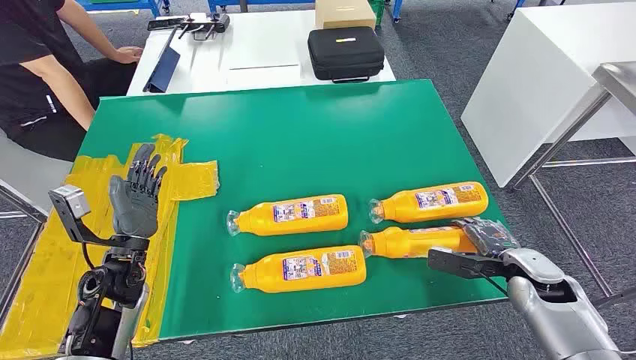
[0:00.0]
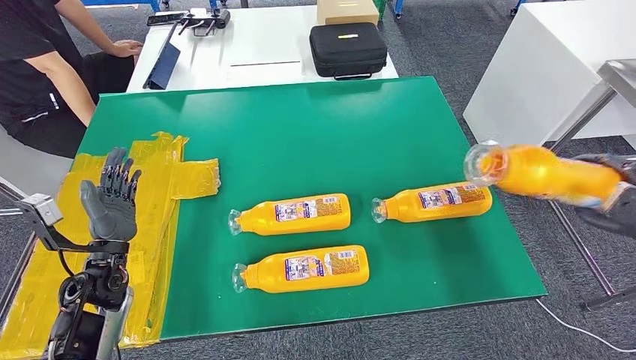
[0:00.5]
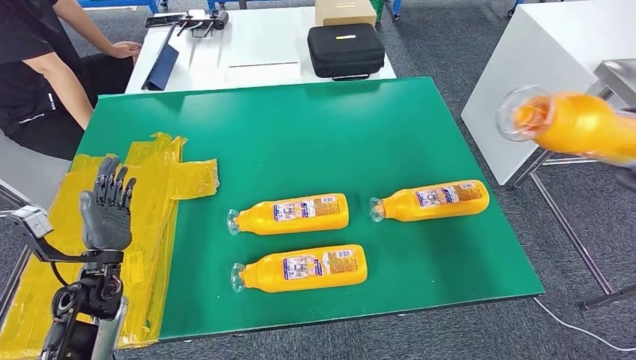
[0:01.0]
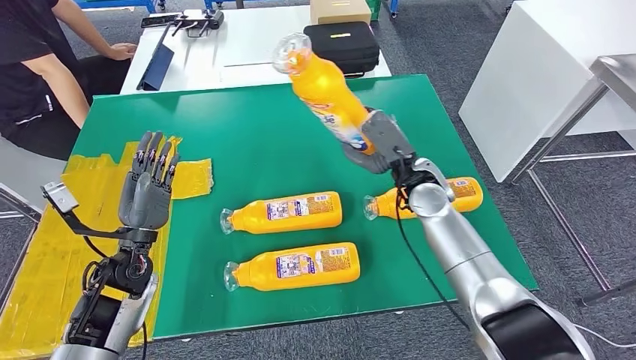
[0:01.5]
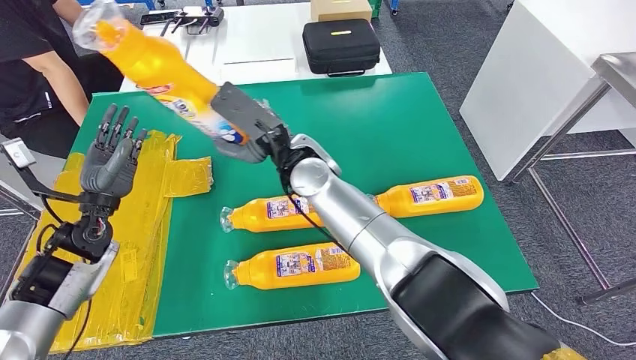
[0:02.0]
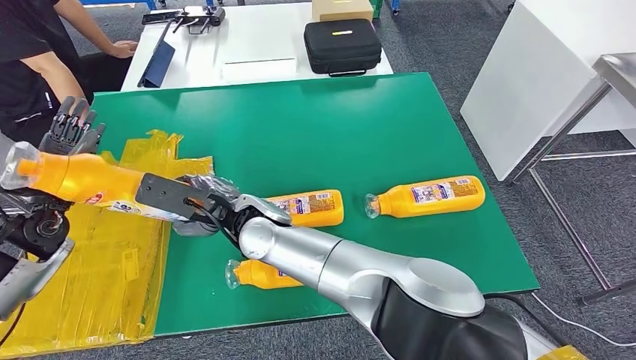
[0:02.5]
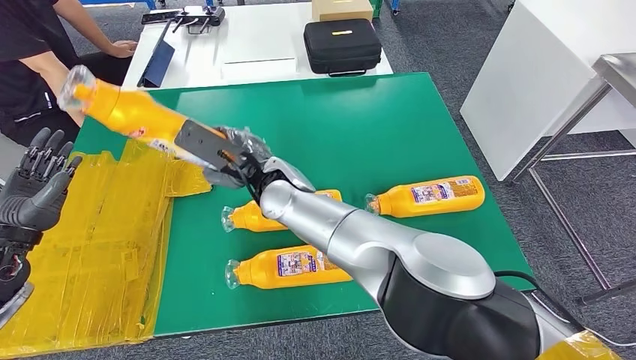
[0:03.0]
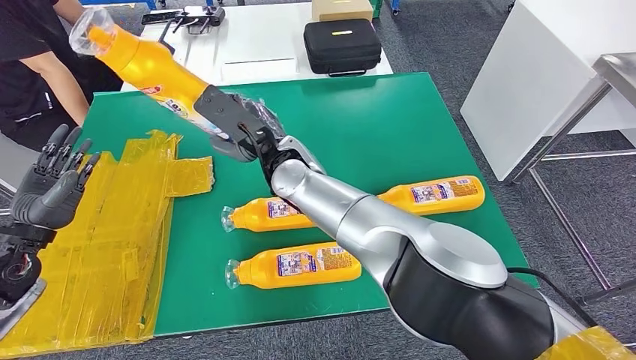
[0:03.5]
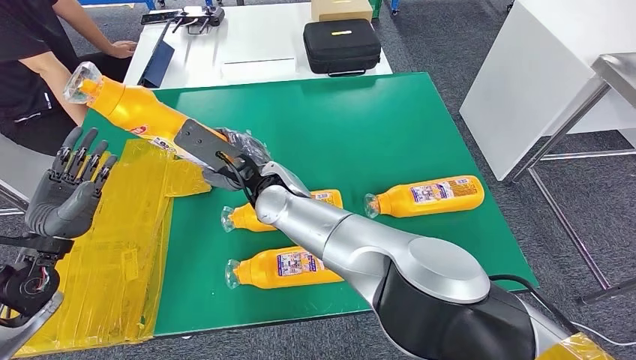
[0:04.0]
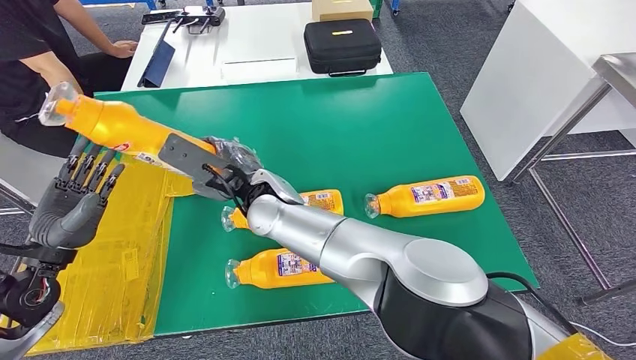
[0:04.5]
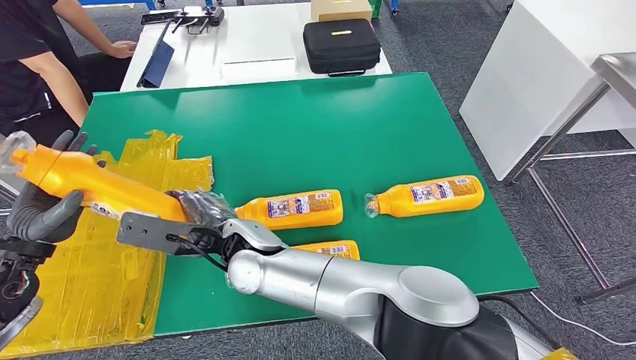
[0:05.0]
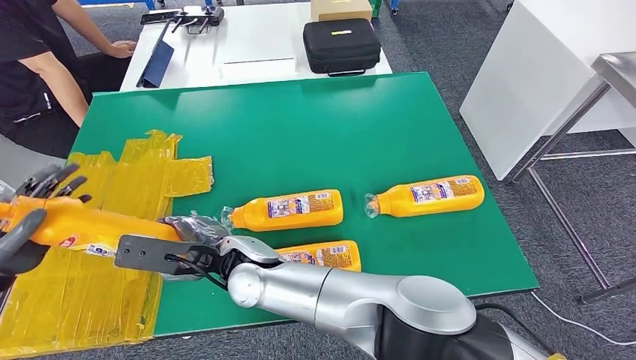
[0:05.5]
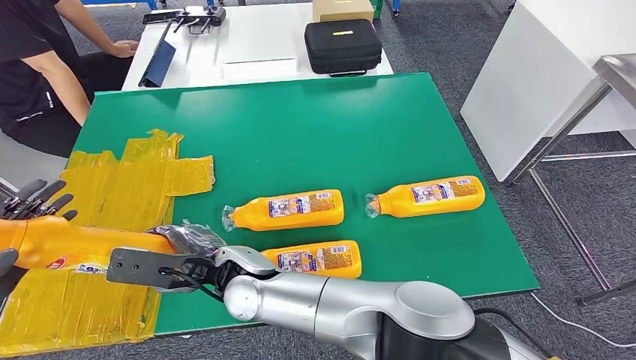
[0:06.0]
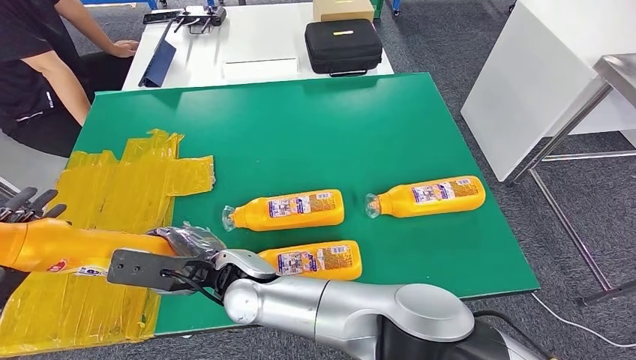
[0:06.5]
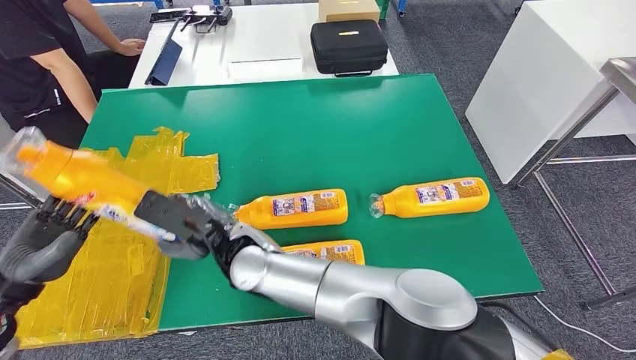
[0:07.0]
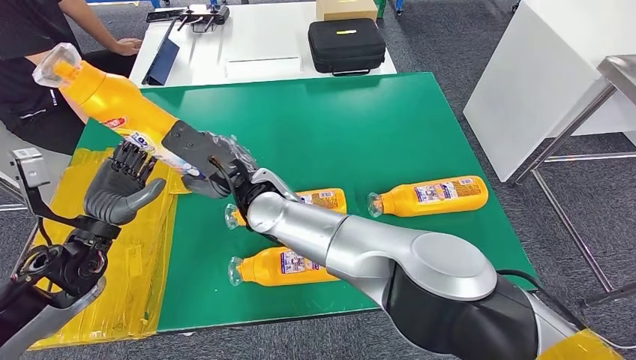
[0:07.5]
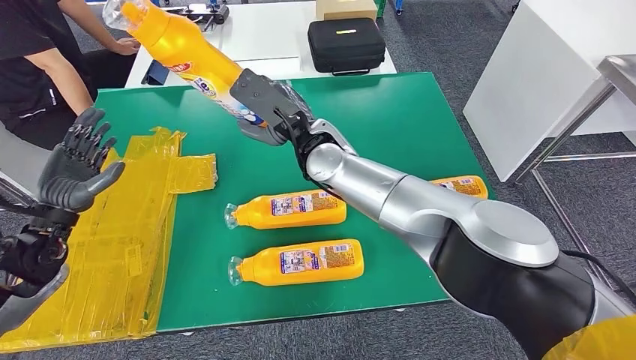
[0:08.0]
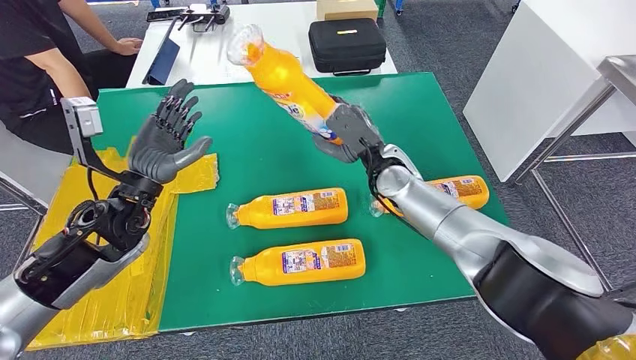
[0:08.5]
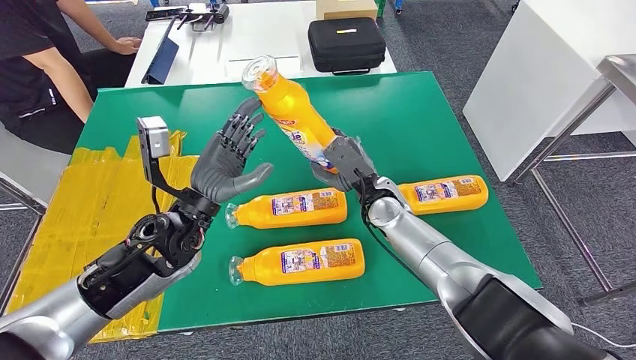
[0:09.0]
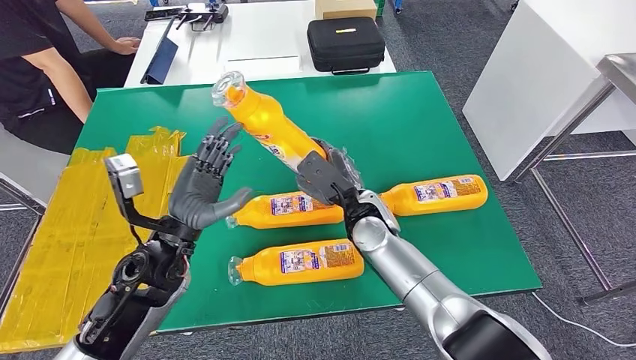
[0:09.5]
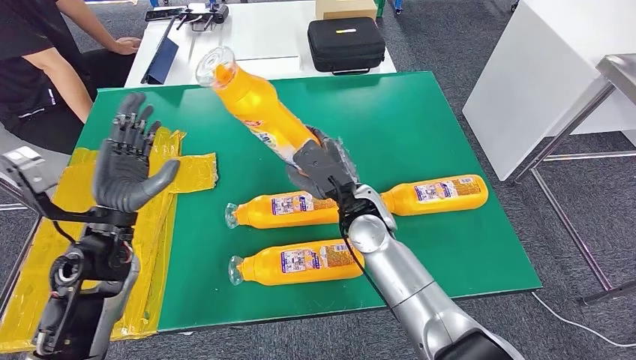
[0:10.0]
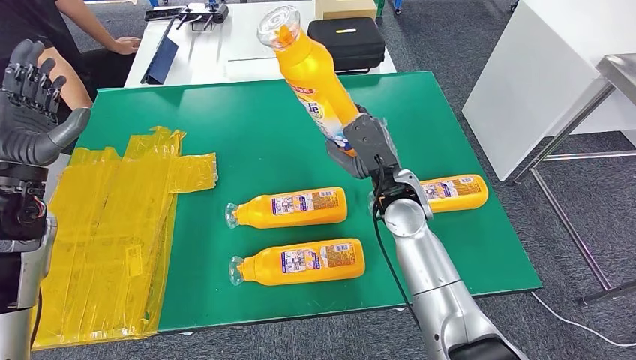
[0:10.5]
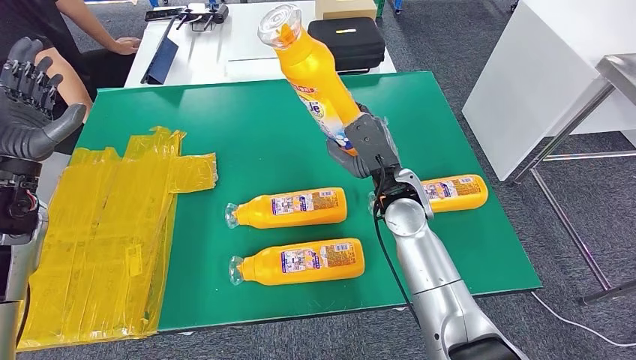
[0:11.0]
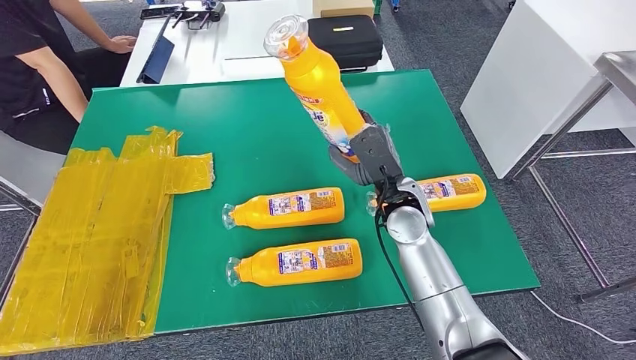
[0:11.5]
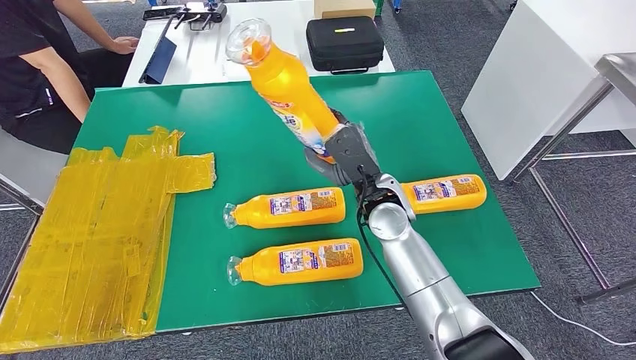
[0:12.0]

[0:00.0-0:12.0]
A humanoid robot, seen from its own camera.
Step, 0:00.0 to 0:02.5: Take the fast-moving consumer goods bottle from the table.

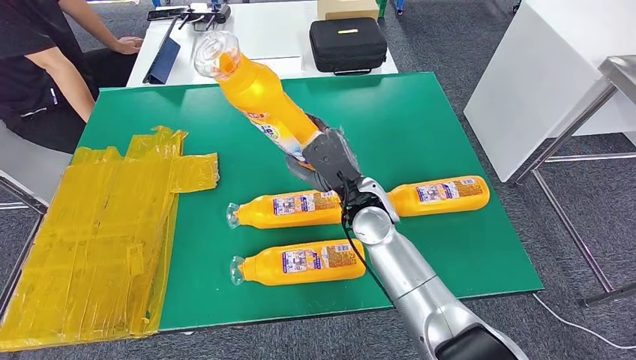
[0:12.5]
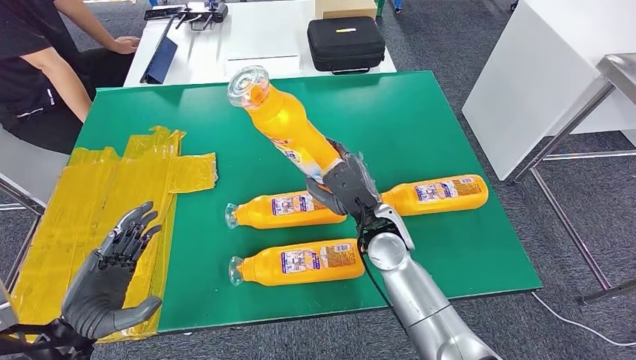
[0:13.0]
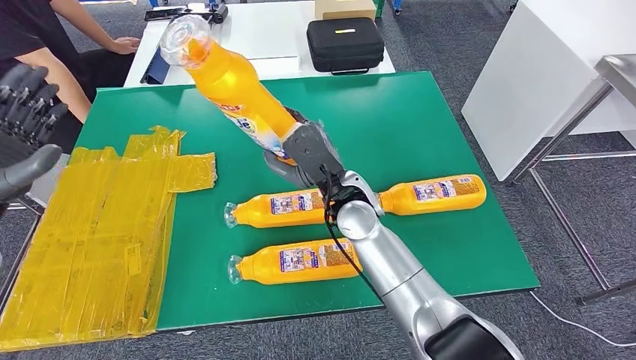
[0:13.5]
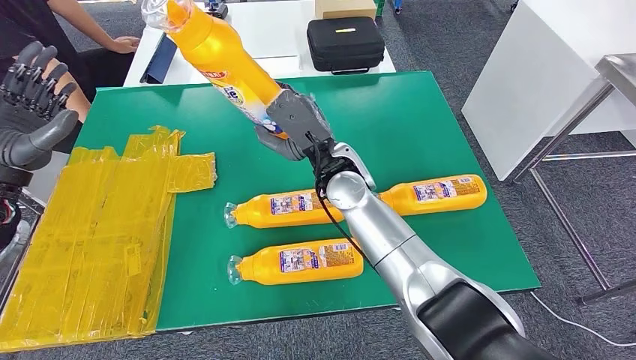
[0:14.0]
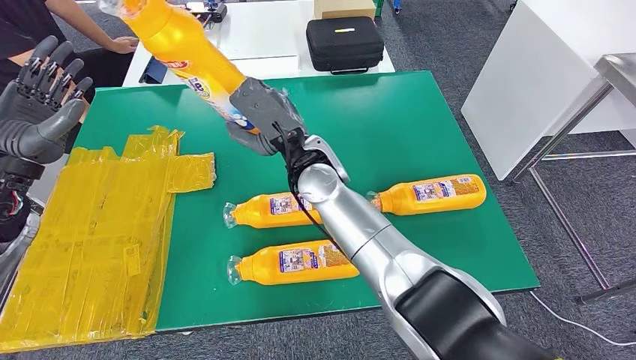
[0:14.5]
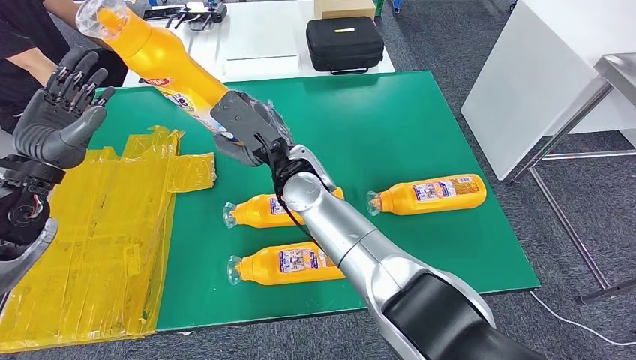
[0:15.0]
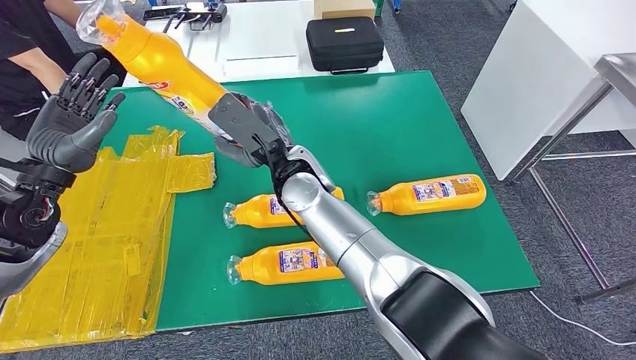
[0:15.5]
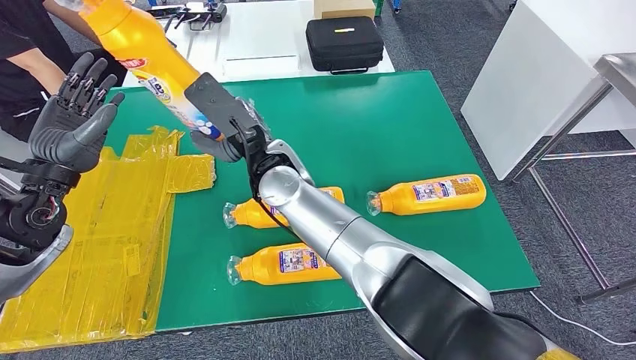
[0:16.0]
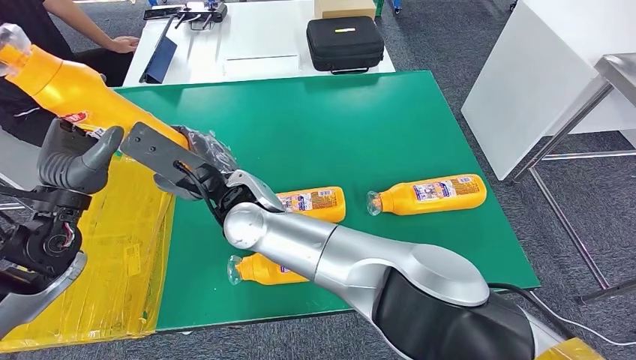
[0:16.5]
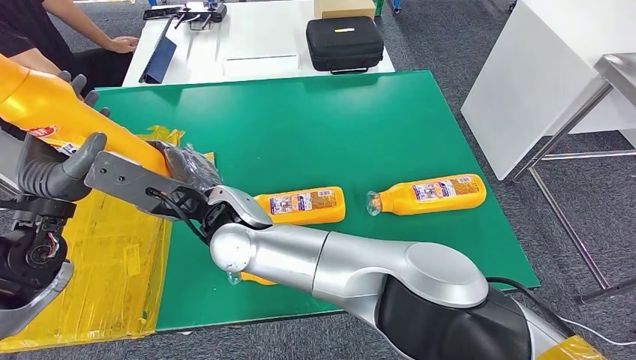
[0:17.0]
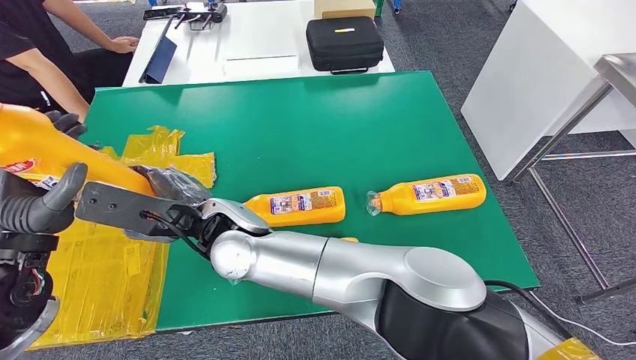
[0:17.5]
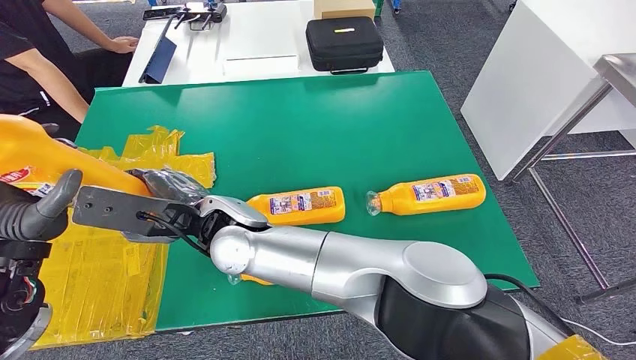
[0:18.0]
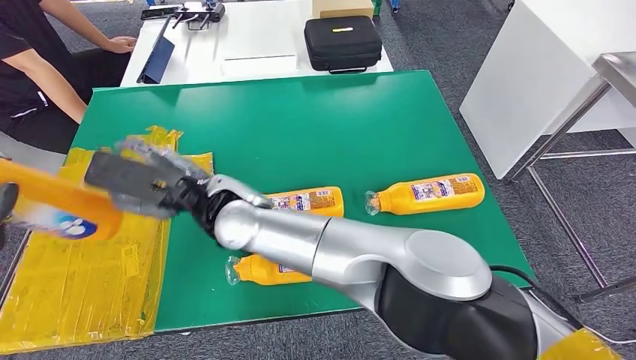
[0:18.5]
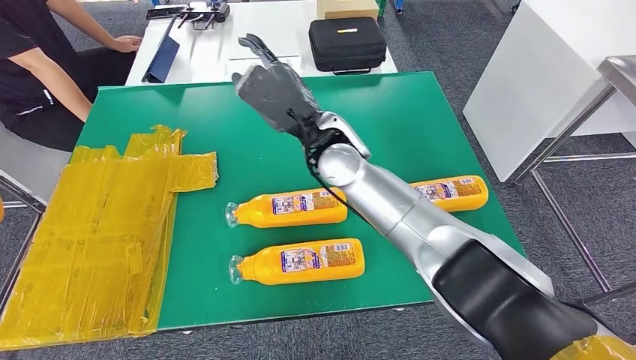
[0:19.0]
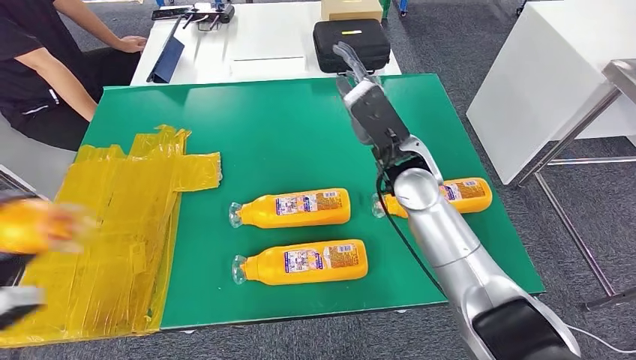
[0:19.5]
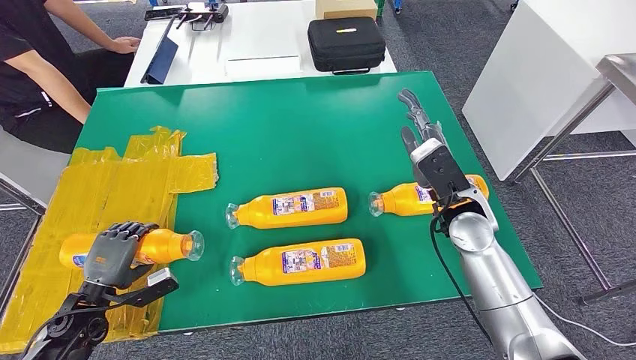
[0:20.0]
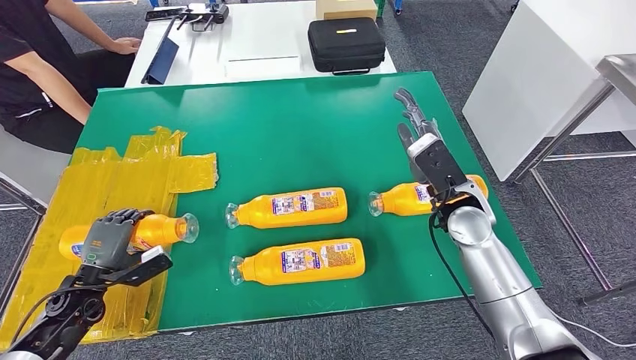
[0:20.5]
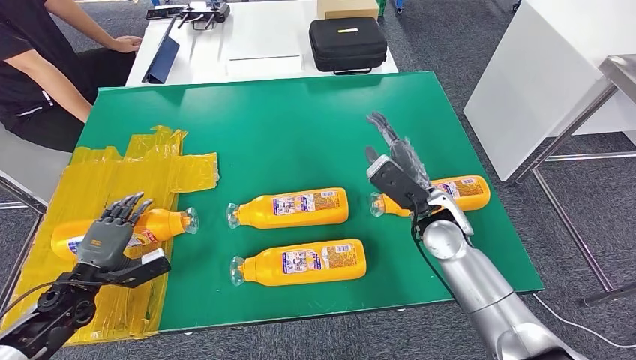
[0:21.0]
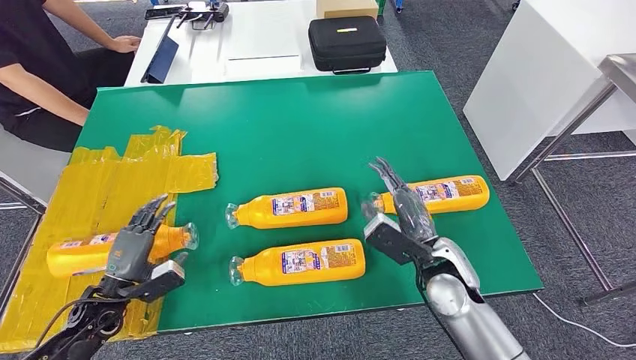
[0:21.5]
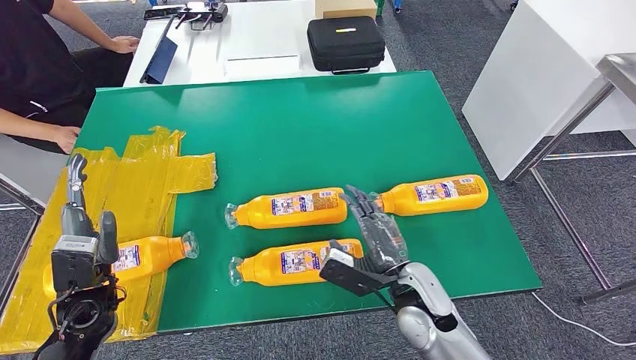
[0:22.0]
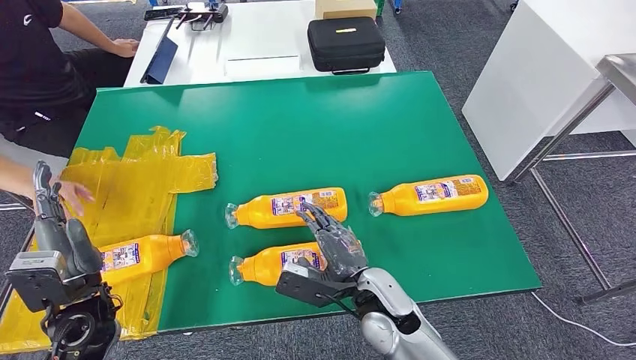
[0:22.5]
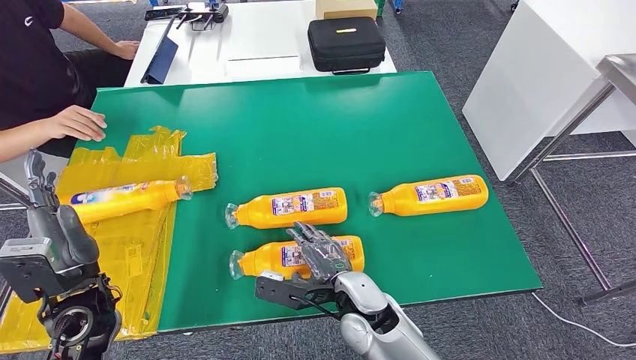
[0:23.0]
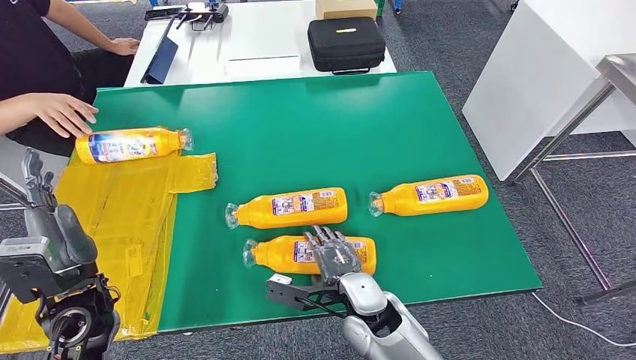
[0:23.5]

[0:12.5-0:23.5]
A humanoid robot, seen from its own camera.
Step, 0:12.5 to 0:19.5: Flip the fast-moving consumer goods bottle to the front side.
0:20.0 to 0:21.5: The right hand moves backward and downward, roughly 10 cm.
